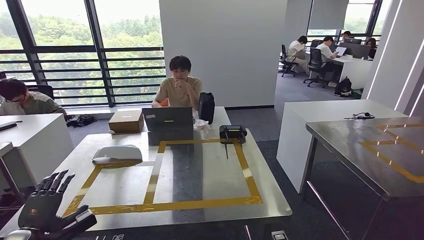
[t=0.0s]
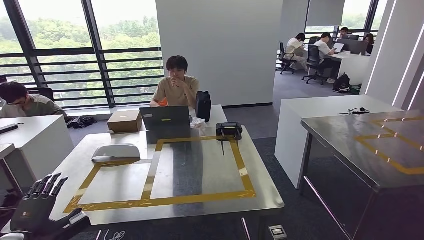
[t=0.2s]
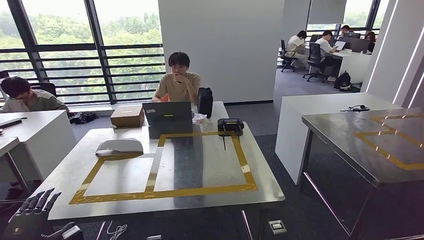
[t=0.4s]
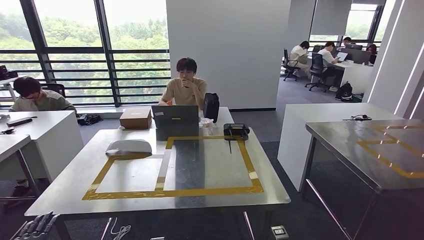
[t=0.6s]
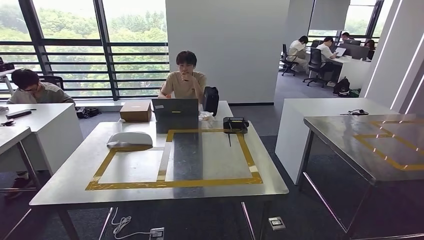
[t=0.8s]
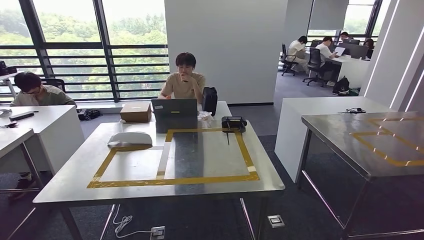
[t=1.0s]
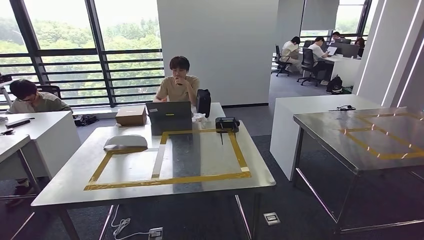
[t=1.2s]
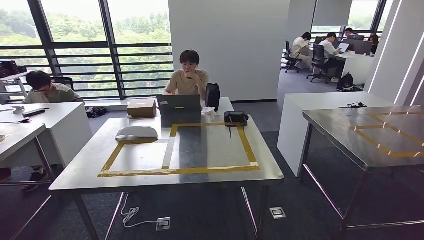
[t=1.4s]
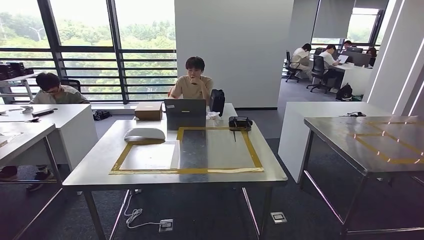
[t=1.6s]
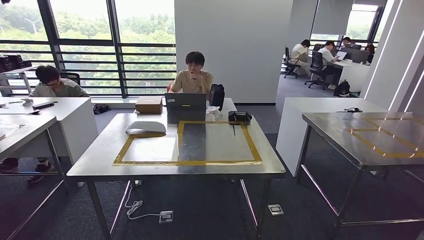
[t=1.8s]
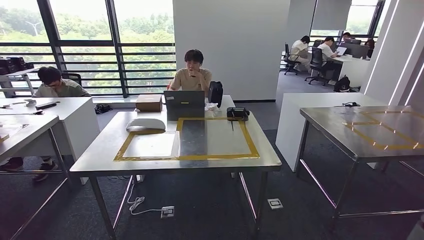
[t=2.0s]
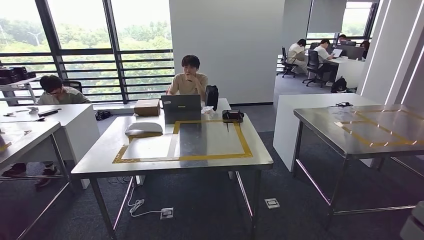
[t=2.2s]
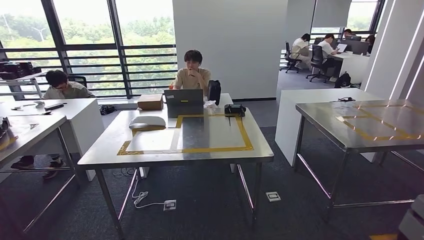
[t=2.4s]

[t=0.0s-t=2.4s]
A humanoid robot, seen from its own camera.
Step, t=0.2s to t=2.4s: Move to the initial position of the workbench.
